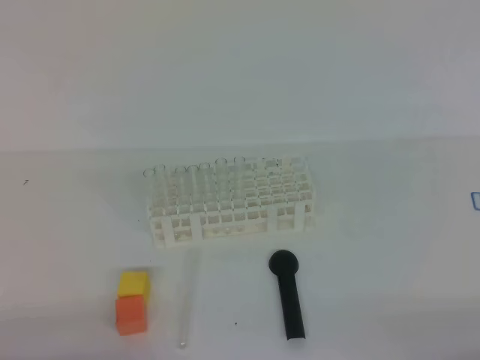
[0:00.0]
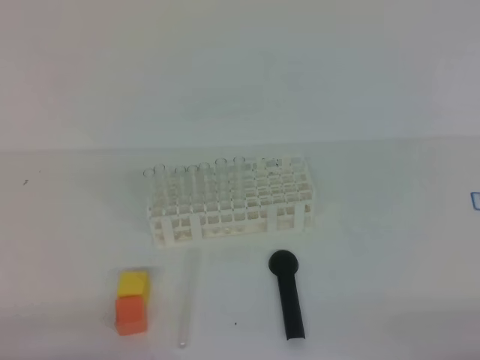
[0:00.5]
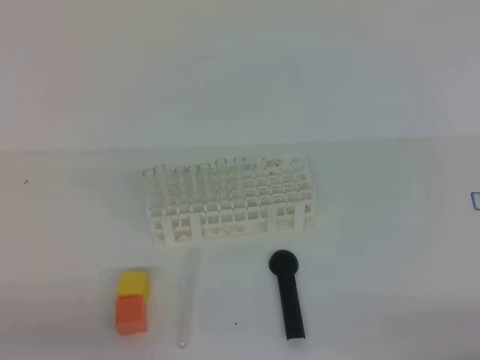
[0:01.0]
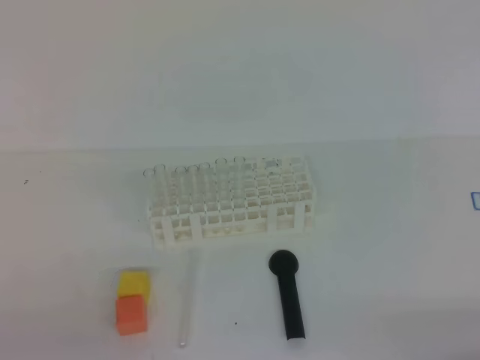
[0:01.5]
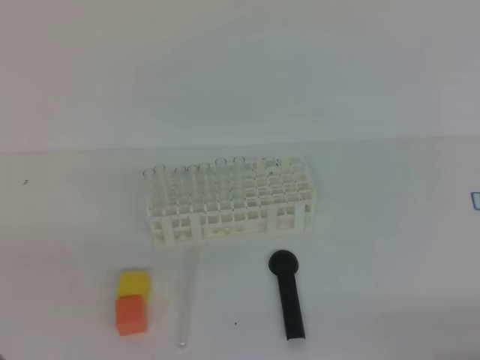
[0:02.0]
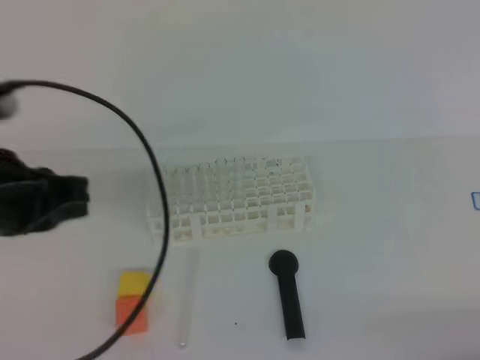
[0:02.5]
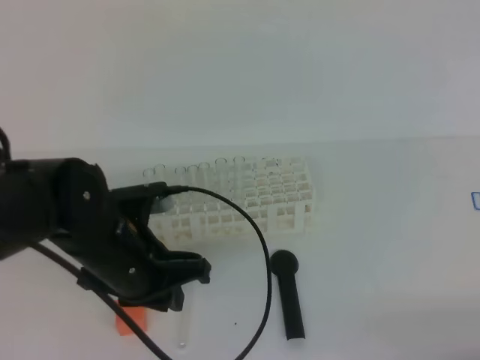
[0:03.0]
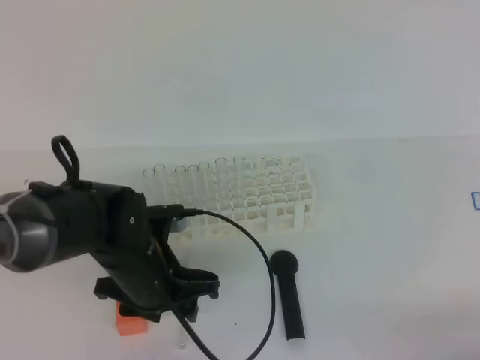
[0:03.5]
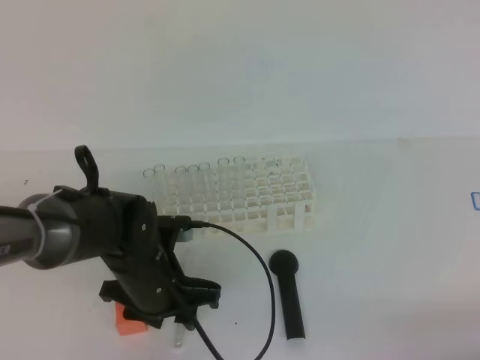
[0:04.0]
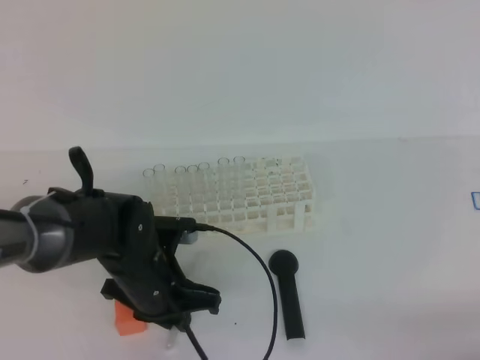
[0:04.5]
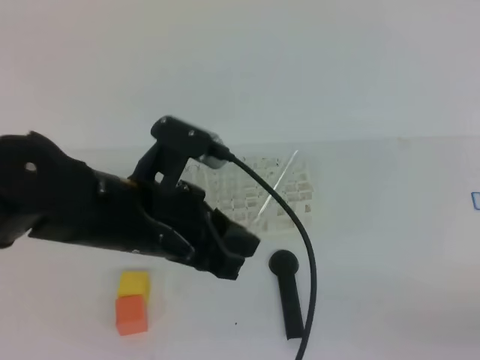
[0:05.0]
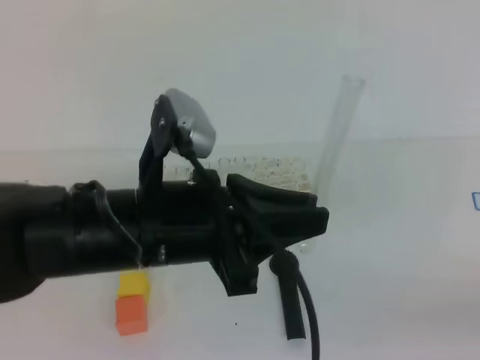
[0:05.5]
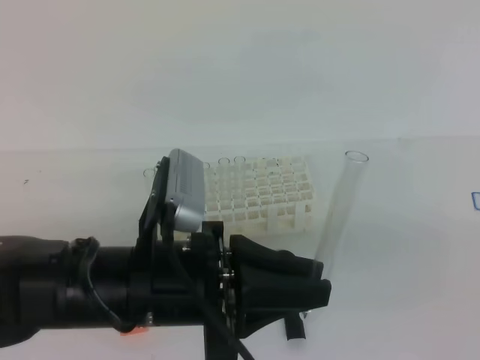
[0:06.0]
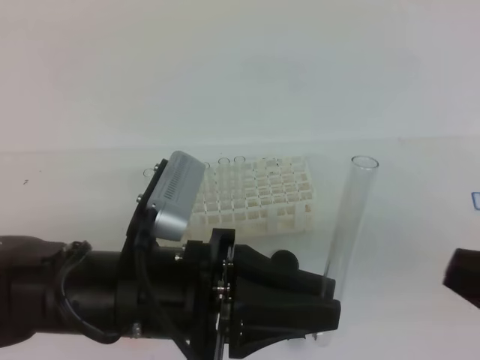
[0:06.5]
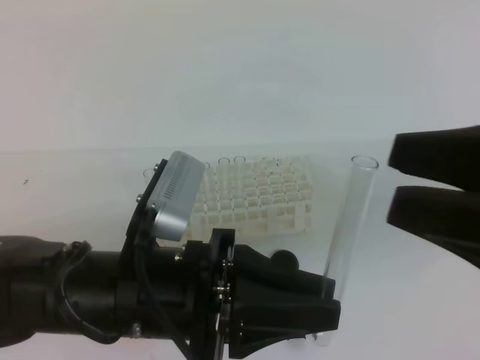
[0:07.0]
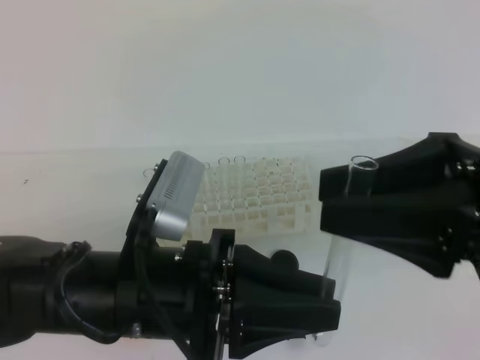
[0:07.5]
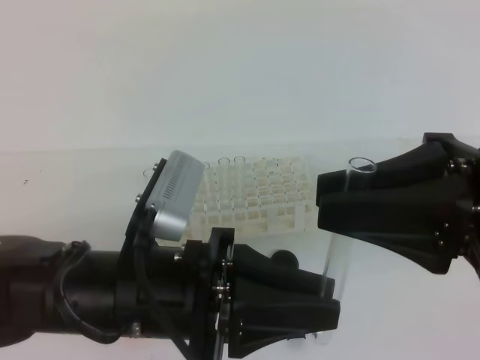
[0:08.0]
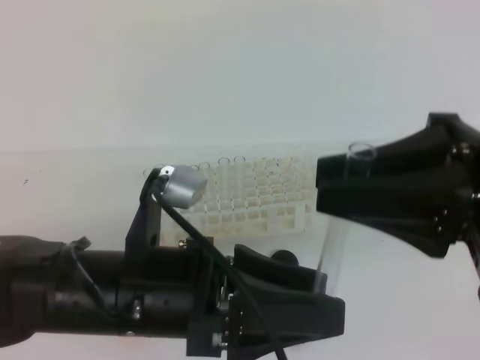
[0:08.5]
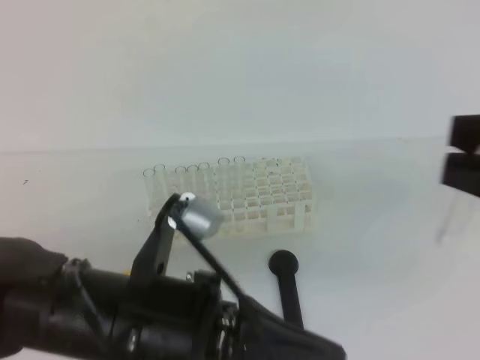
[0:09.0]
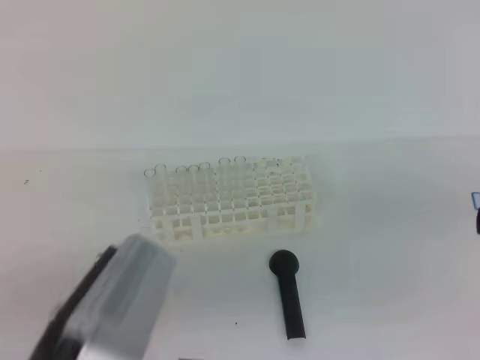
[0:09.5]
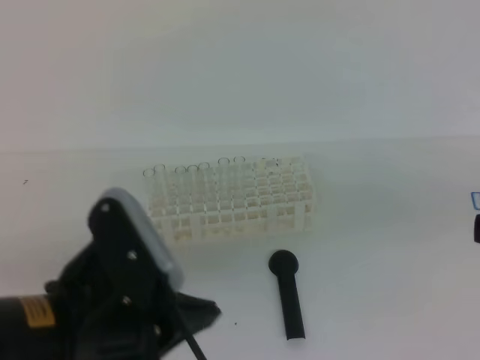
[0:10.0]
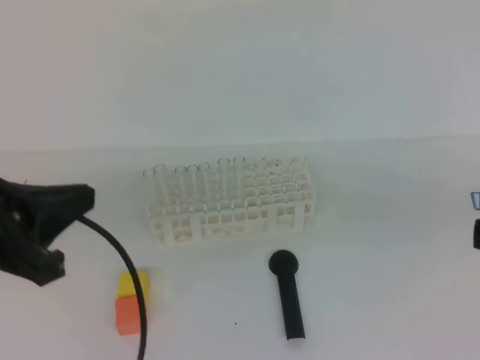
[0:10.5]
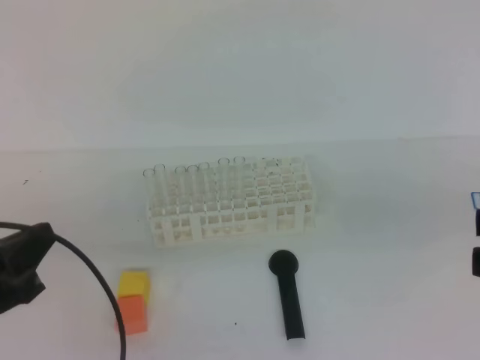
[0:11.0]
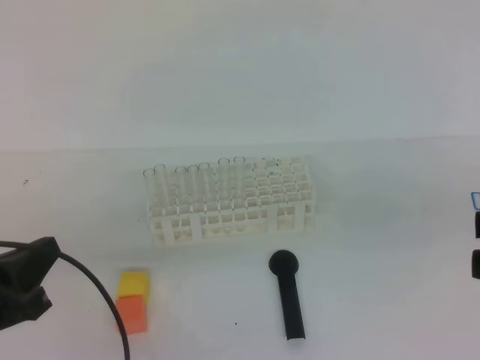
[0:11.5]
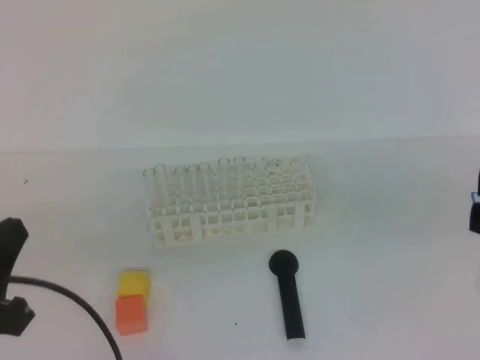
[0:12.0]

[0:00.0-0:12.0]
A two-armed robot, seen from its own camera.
0:02.0 to 0:04.0: The left gripper is displaced forward, downward and to the right by roughly 30 cm, and opens its fingers.
0:04.0 to 0:06.0: The left gripper shifts roughly 20 cm upward and backward, and closes up. The right gripper goes approximately 10 cm upward.
0:06.0 to 0:08.0: The right gripper shifts roughly 15 cm forward, to the left and upward, and opens up.
0:08.0 to 0:10.0: The left gripper reaches approximately 10 cm backward, then returns, and opens and closes again; the right gripper shifts about 10 cm backward, upward and to the right.
0:10.0 to 0:12.0: The left gripper shifts roughly 10 cm to the left.

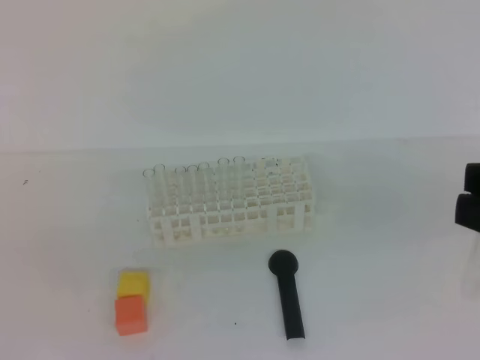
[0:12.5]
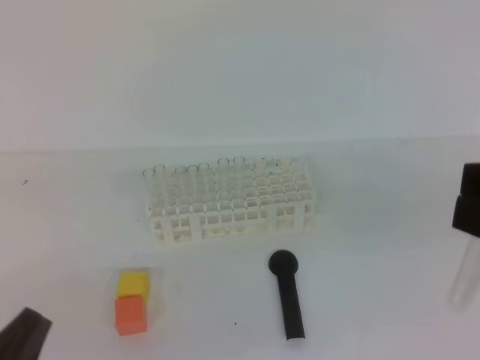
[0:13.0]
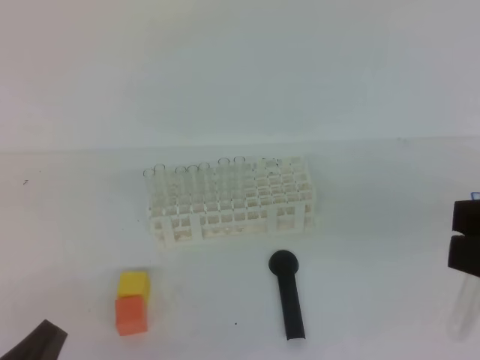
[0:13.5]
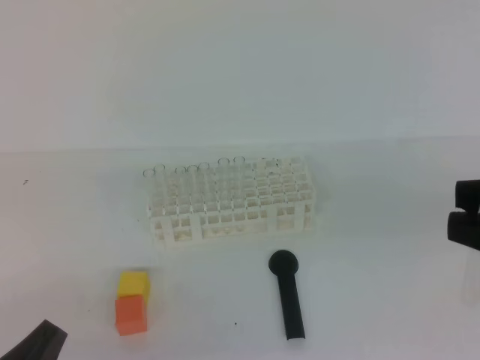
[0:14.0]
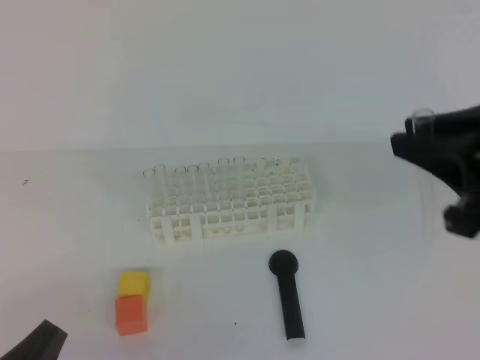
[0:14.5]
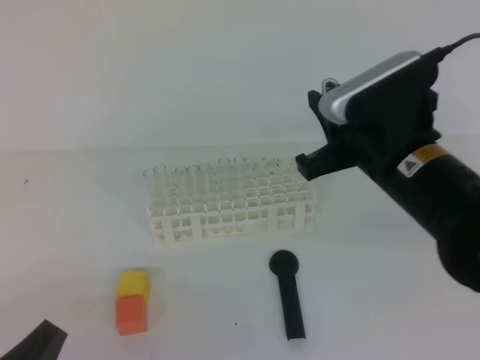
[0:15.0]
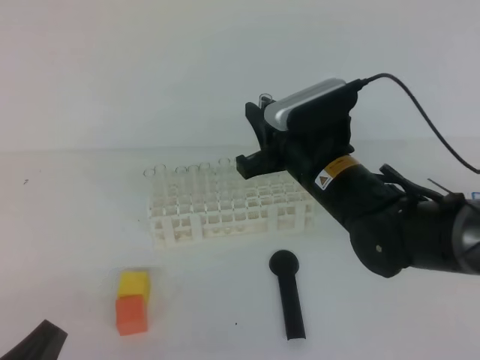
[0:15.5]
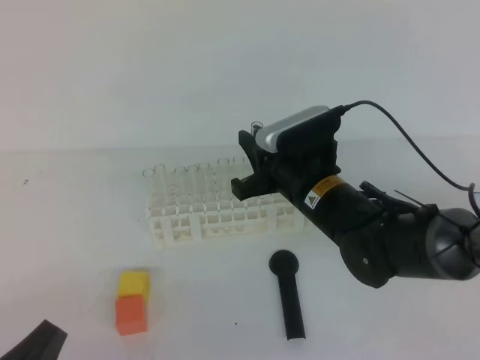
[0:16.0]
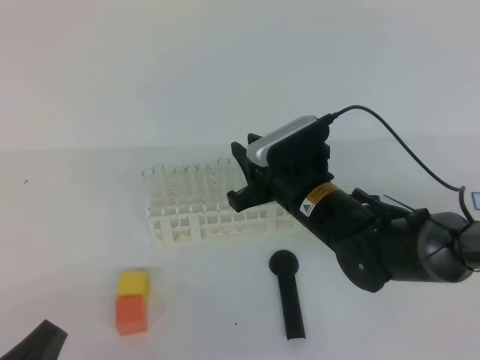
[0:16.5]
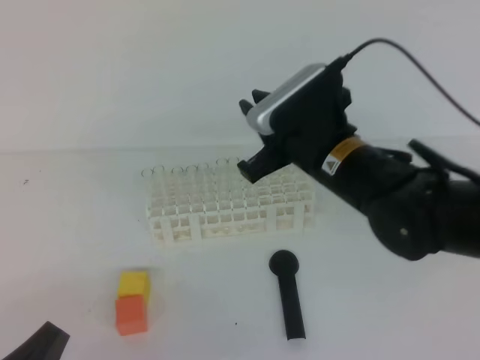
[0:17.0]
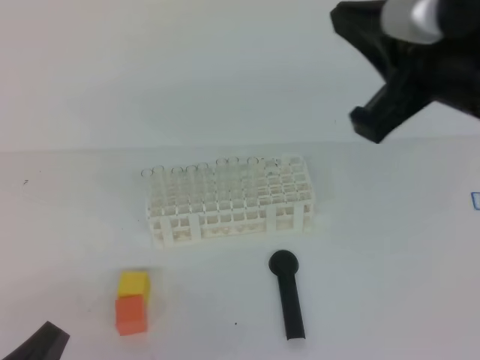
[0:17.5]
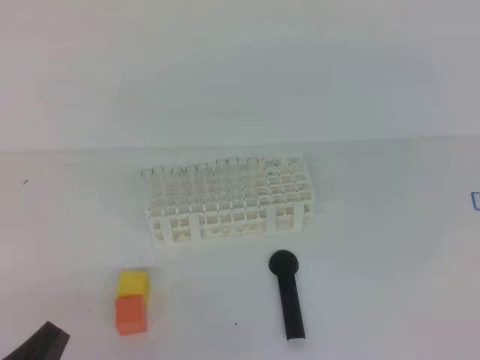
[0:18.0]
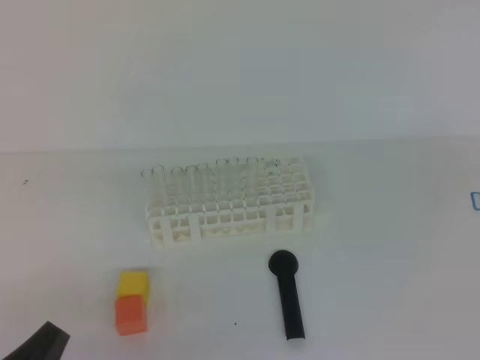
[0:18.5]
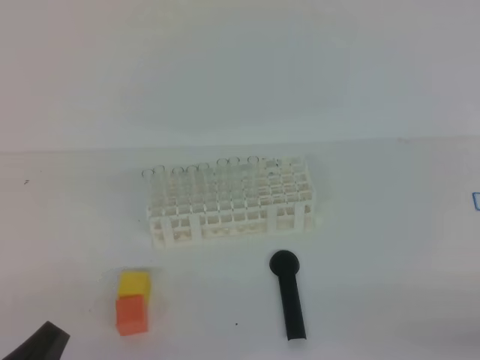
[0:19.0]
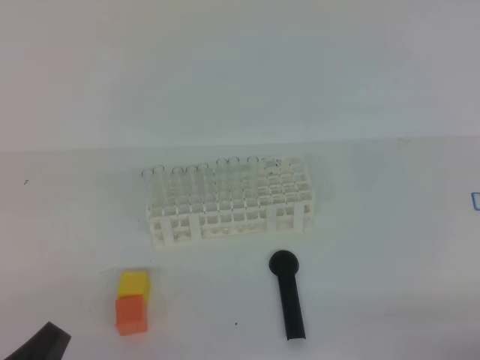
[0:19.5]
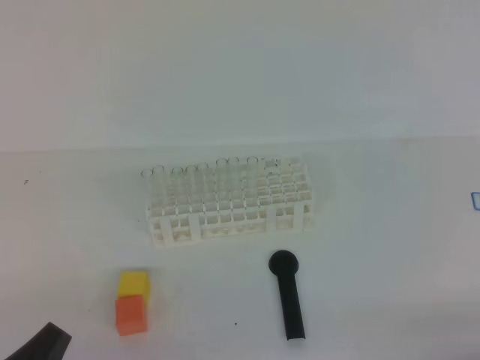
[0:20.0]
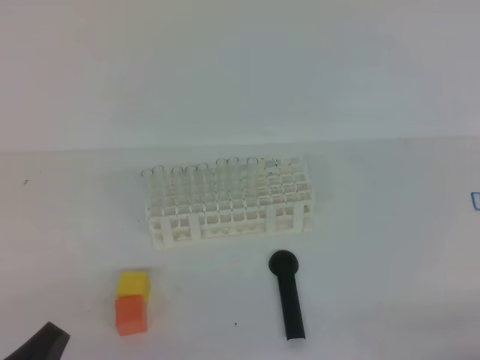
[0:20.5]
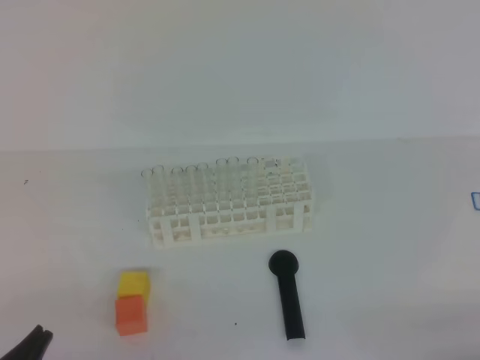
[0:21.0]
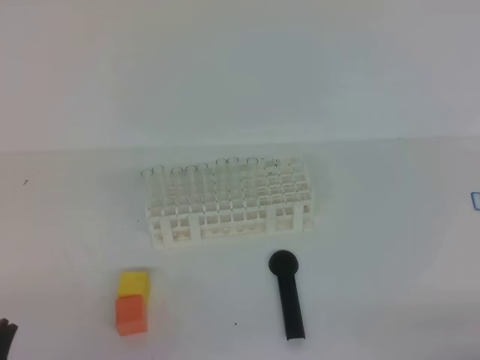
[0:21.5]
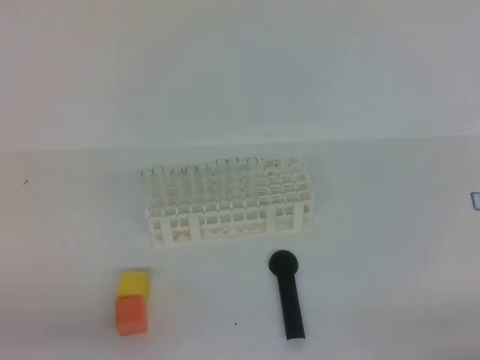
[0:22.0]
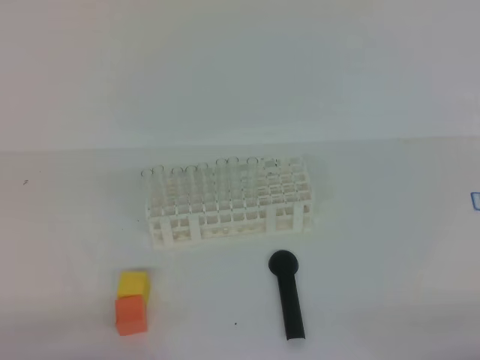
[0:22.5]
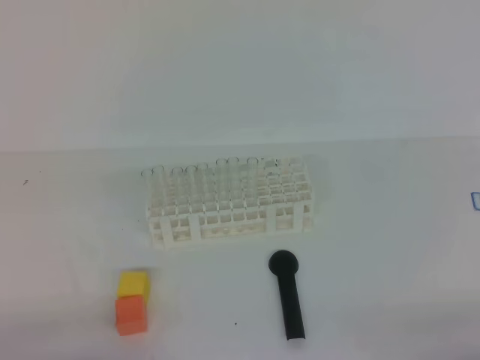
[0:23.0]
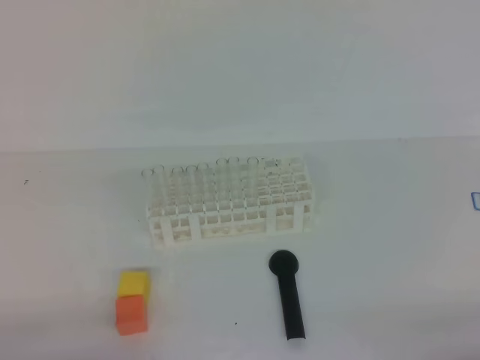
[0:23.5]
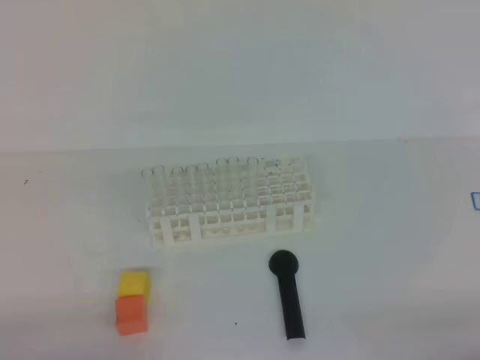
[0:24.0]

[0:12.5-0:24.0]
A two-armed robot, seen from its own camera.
0:12.5 to 0:14.5: The left gripper shifts some 10 cm downward, while the right gripper moves forward, about 10 cm.
0:14.5 to 0:16.5: The right gripper is displaced downward, to the left and forward by about 25 cm.
0:16.5 to 0:18.5: The right gripper is displaced to the right, upward and backward by some 35 cm, and closes up.
